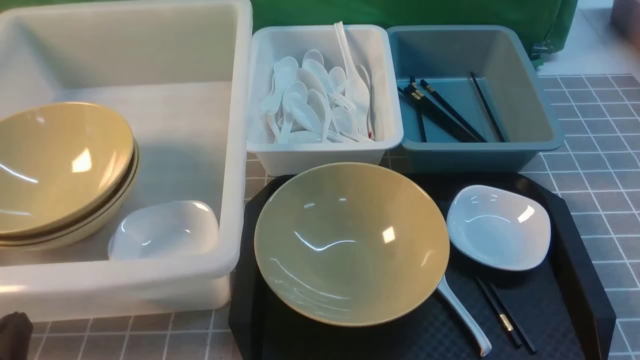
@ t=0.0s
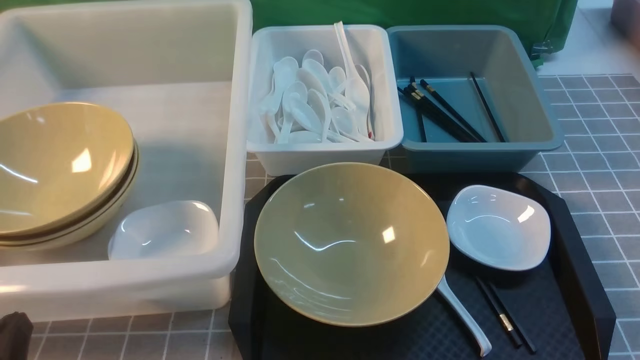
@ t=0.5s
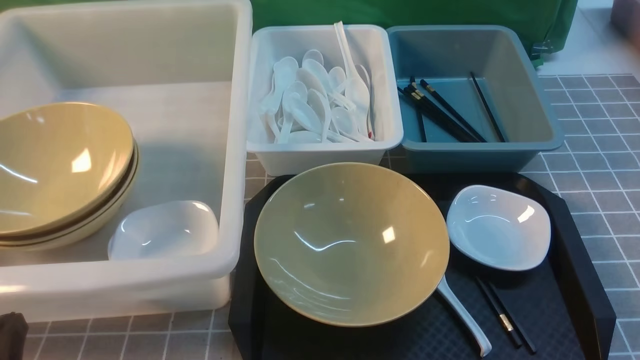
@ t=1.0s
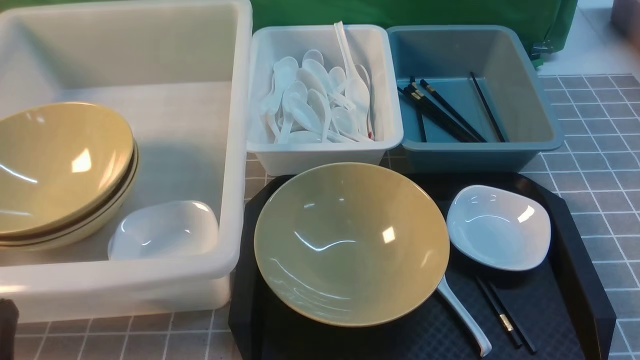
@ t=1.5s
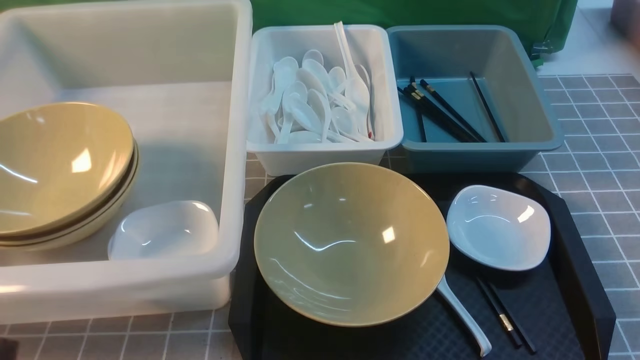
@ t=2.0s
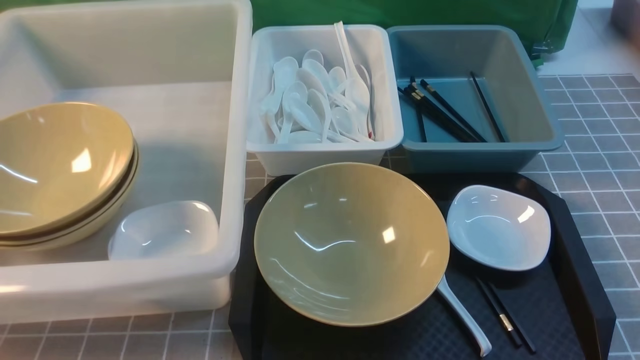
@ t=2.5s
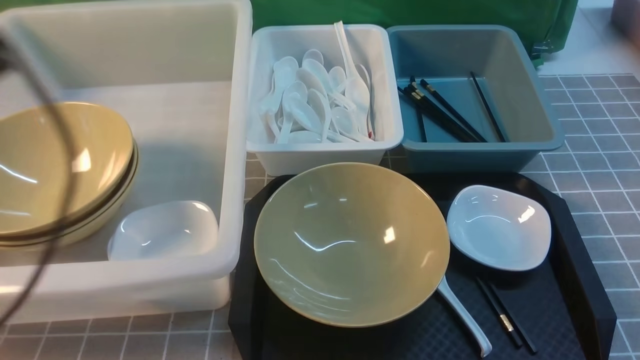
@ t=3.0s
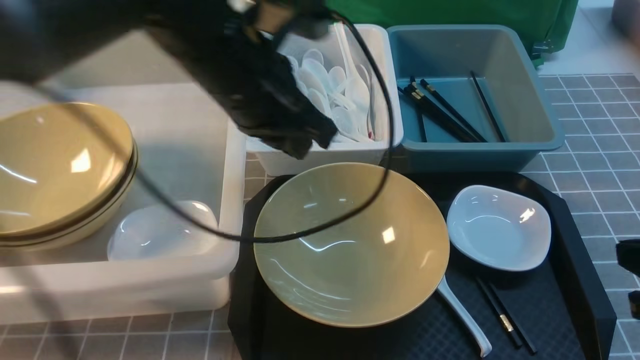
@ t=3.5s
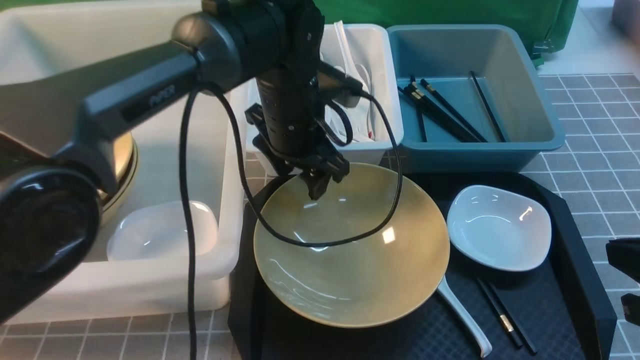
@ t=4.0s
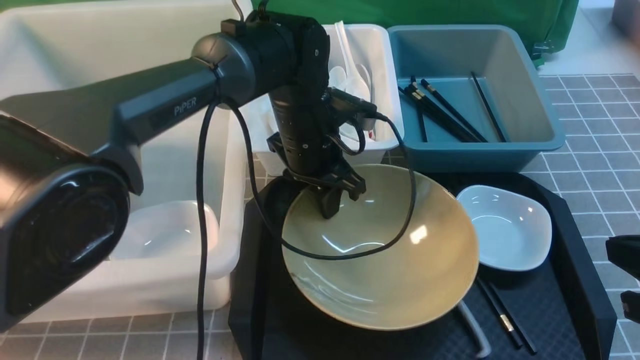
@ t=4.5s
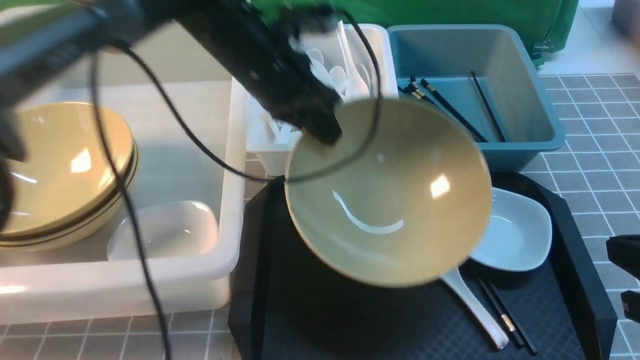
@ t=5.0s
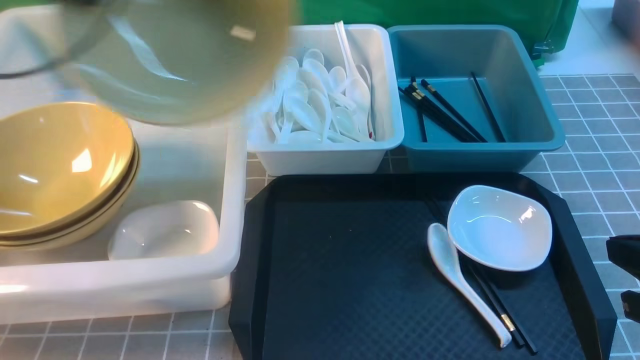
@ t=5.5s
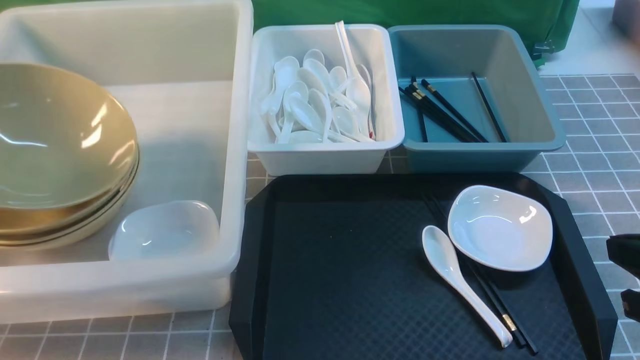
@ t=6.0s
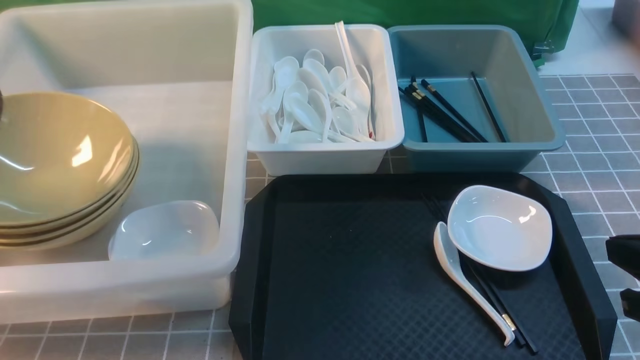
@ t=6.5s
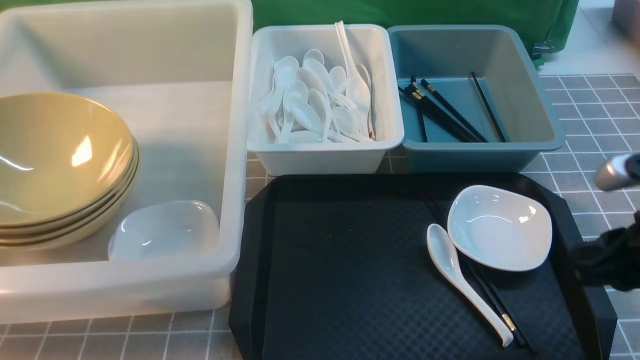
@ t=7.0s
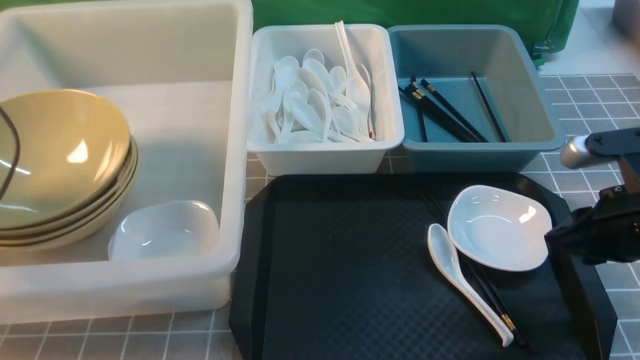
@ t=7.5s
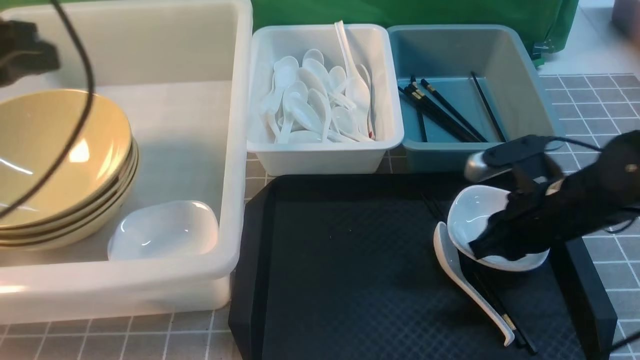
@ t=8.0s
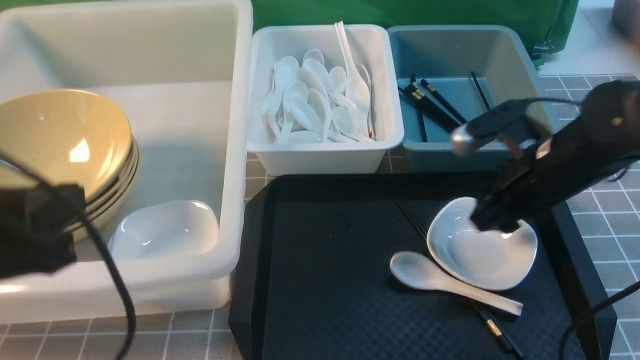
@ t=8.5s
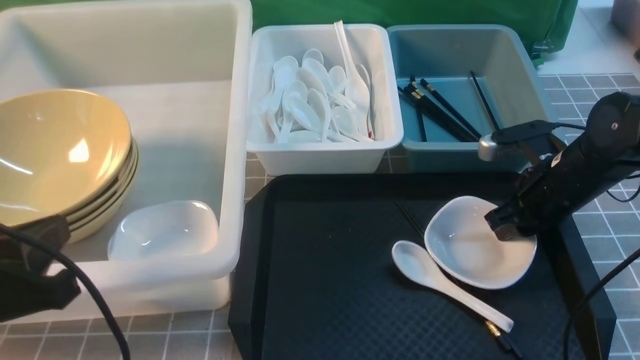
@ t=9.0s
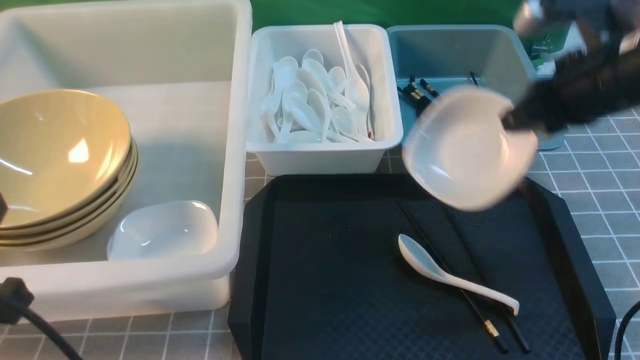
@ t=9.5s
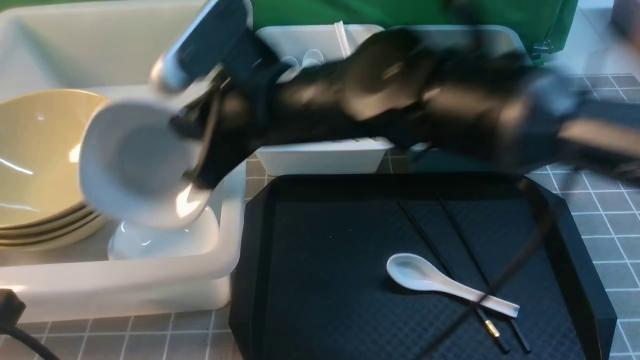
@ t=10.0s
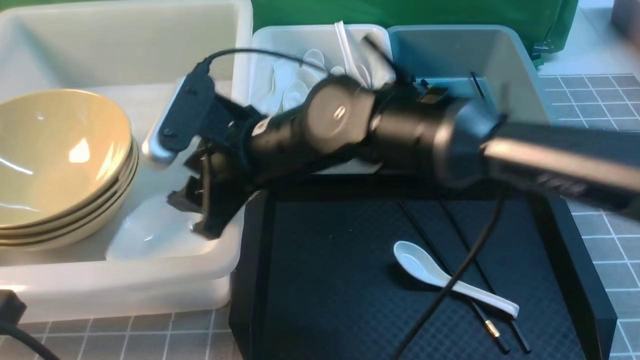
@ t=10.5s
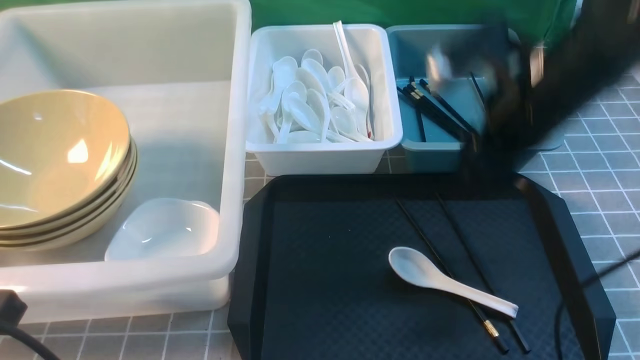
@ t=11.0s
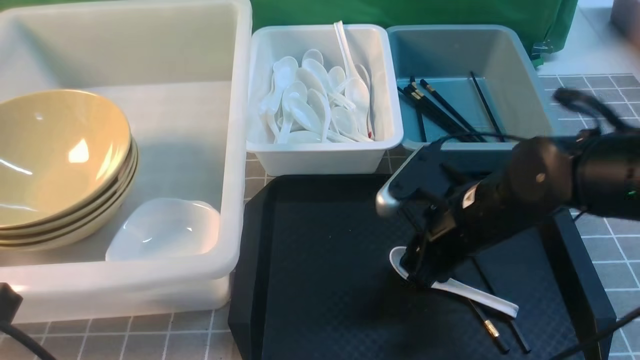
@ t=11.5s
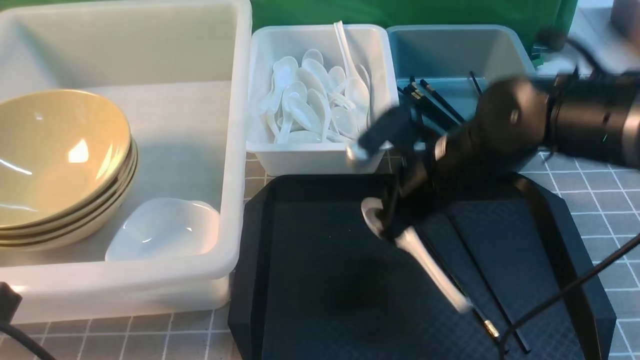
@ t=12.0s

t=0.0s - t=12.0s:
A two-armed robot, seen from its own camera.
Task of the whole recording: on grey table put chopsticks spoon bowls plates into blue grey white boxes.
Step, t=0.0s - t=4.5s: use the left arm to grab the yellow noodle bowl on the left.
Step, t=5.0s - t=6.5s: use the left arm to put the noodle bowl into the large storage box on the left.
Step, t=7.0s - t=9.0s: use the right arm to grab the plate.
Step, t=9.5s - t=10.5s: use the right arm to put the plate into the large storage box on the left.
Step, t=11.0s - t=11.5s: use the right arm to grab the soup spoon in the middle.
t=2.0s - t=4.0s: The right gripper travels forward by approximately 10 cm. Meanwhile the left gripper goes approximately 40 cm forward and to the right, and opens its fingers.
t=4.0s - t=6.0s: The left gripper goes about 40 cm to the left, and closes up.
t=6.0s - t=8.0s: The right gripper is displaced forward and downward by approximately 15 cm; the left gripper shifts about 15 cm to the right and backward, and opens, then closes again.
t=8.0s - t=10.0s: The right gripper heads to the left and upward, covering about 25 cm, and opens and closes again. The left gripper goes roughly 20 cm backward.
t=10.0s - t=12.0s: The right gripper heads downward and to the right, covering approximately 15 cm, and opens, then closes again.

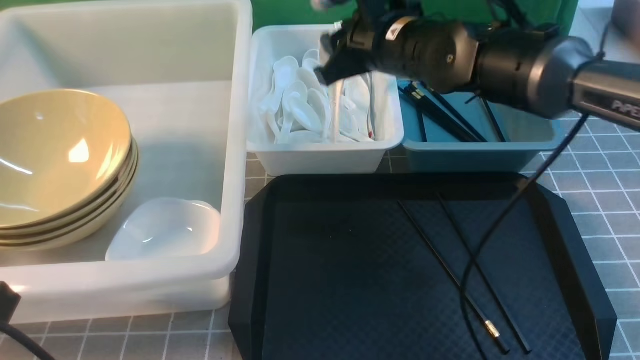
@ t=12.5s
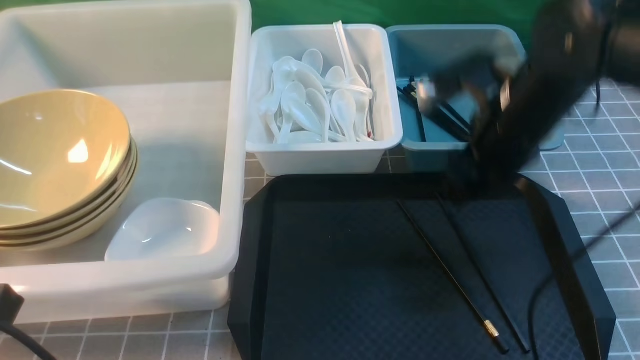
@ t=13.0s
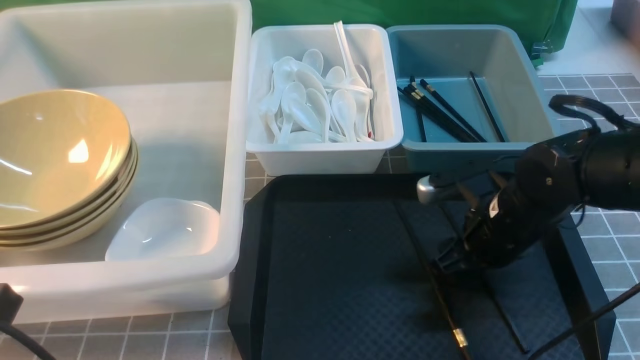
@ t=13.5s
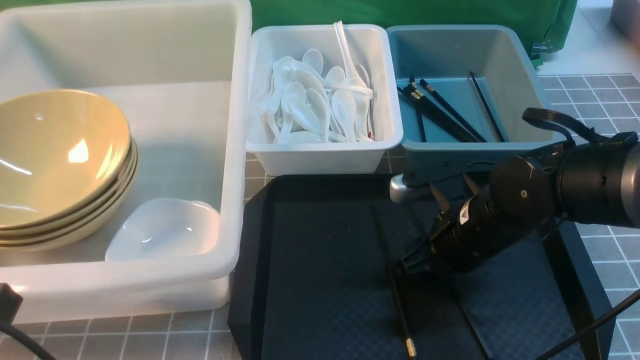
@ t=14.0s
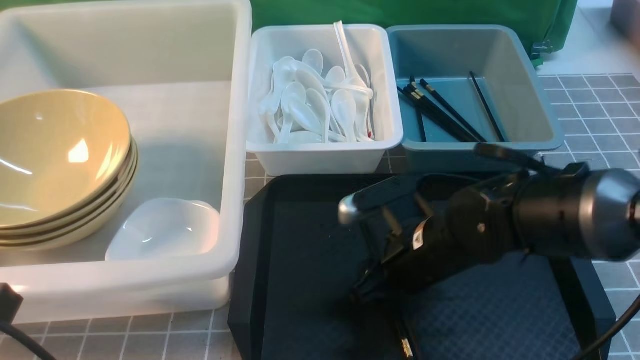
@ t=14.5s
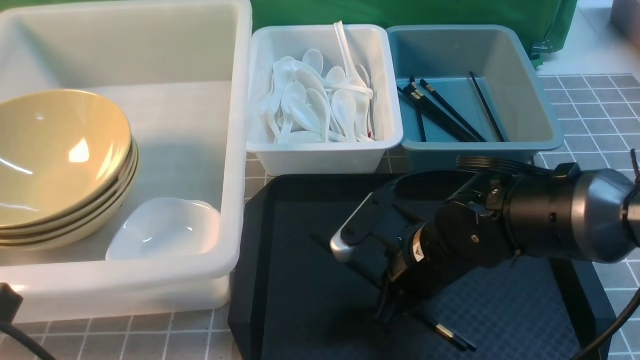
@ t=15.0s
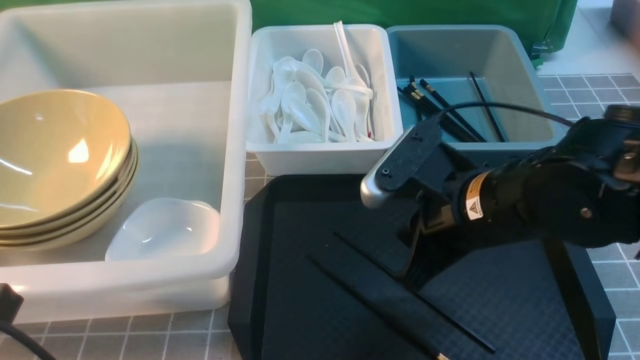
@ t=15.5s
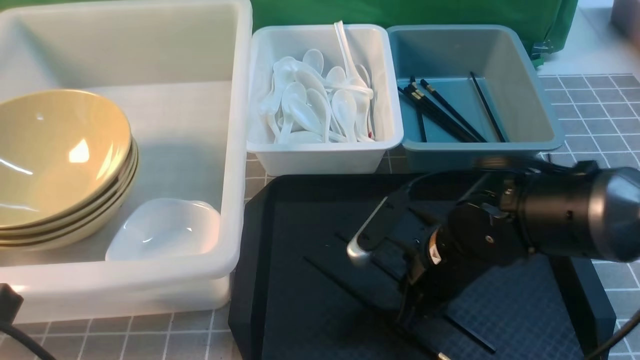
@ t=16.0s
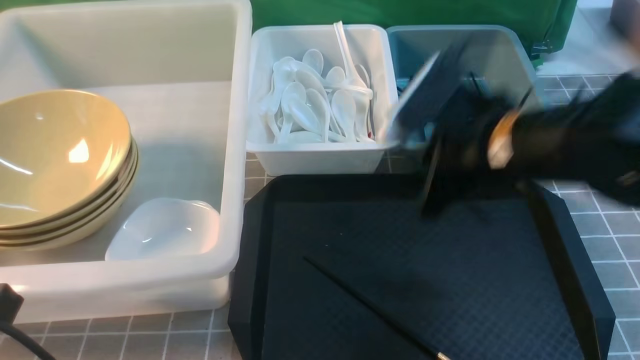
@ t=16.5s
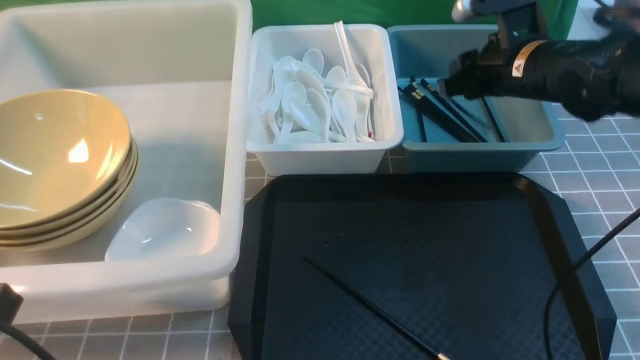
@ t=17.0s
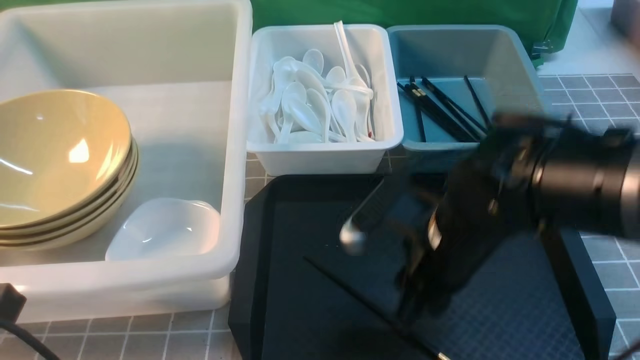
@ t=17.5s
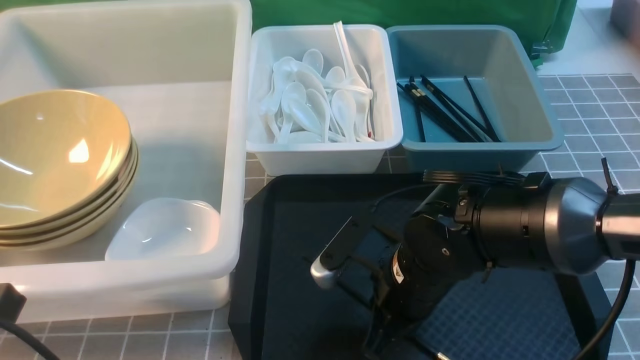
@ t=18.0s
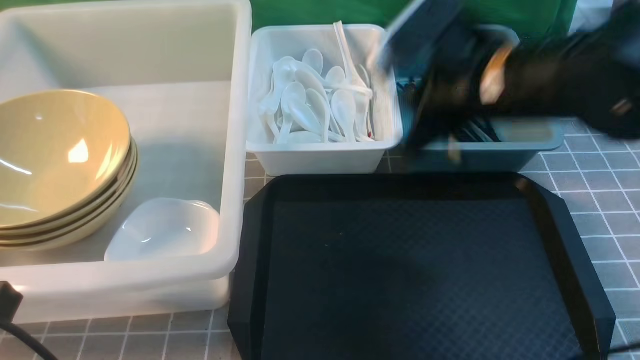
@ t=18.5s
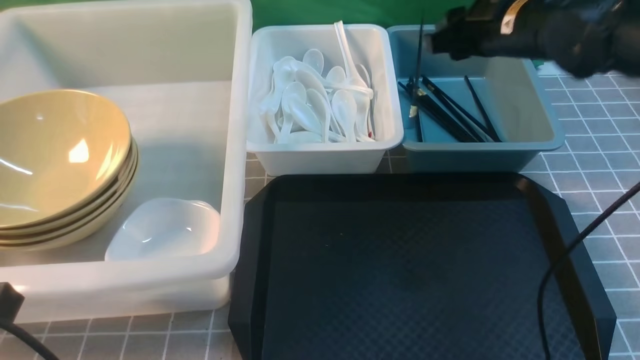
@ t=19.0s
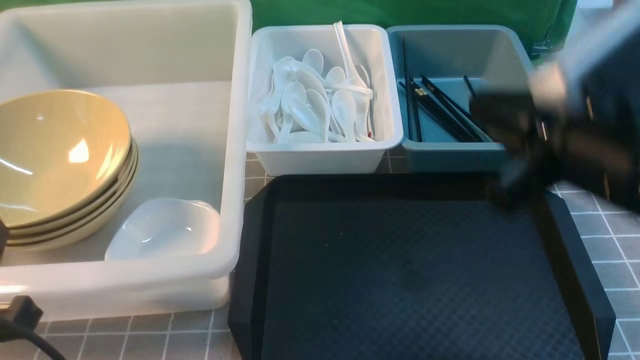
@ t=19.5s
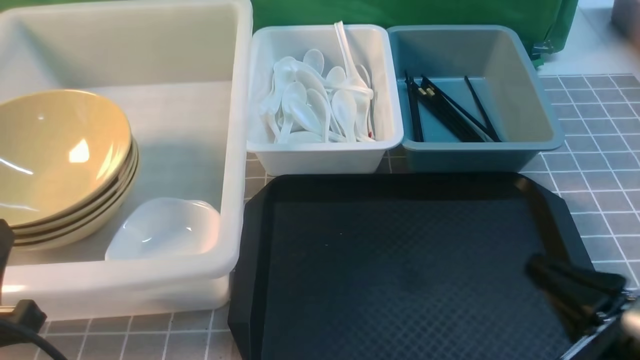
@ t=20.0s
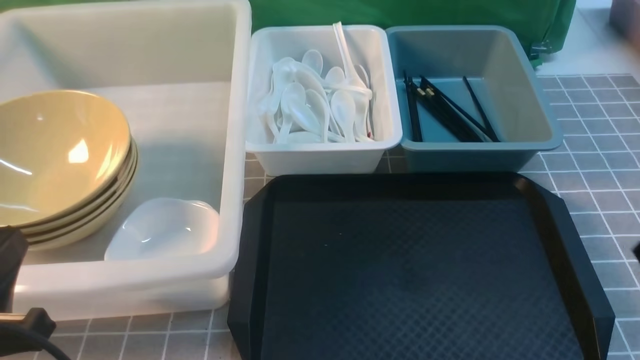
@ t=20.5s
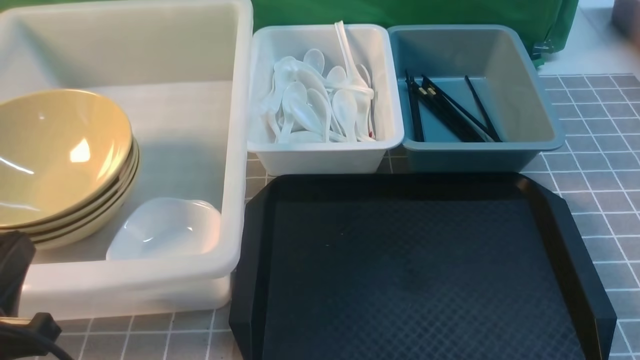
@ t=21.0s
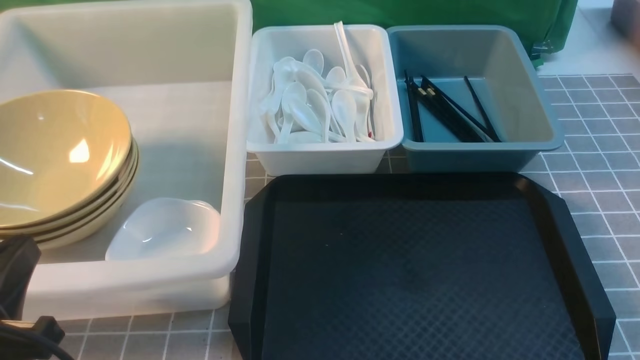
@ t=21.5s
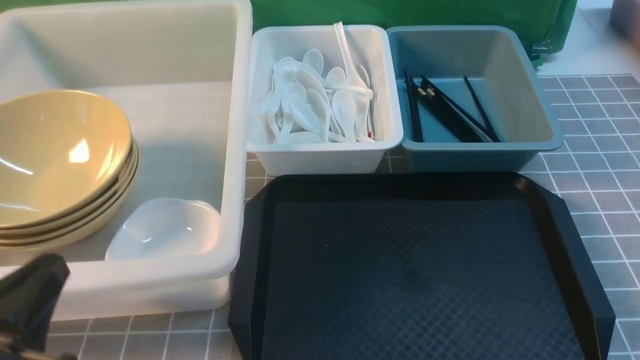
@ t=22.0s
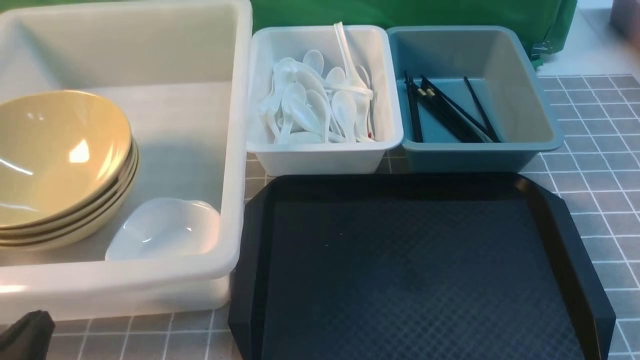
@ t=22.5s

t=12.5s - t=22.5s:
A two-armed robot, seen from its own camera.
Task of the whole recording: on grey table put chopsticks spoon bowls plates into blue grey white boxes.
Step, t=13.0s - t=15.0s: use the right arm to grab the chopsticks.
Step, t=15.5s - t=16.5s: use the right arm to grab a chopstick.
Step, t=17.5s - t=18.0s: use the right arm to grab a chopstick.
Step, t=18.5s - t=19.0s: use the right arm to put a chopstick into the small storage box on the right.
t=12.5s - t=14.5s: The right gripper goes some 20 cm downward and backward, and opens.
t=14.5s - t=16.5s: The right gripper swings up and down, roughly 10 cm each way, with 2 reversals, and closes.
t=16.5s - t=18.5s: The right gripper goes forward and backward, about 15 cm each way, reversing 2 times, and opens, then closes again.
t=18.5s - t=20.5s: The right gripper heads backward and to the right, covering approximately 25 cm, and opens, then closes once more.
t=20.5s - t=22.5s: The left gripper travels downward by about 5 cm.
